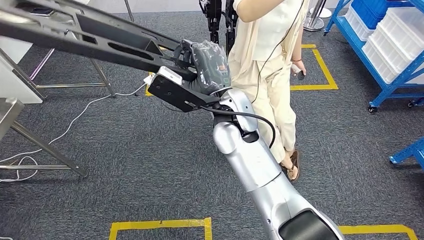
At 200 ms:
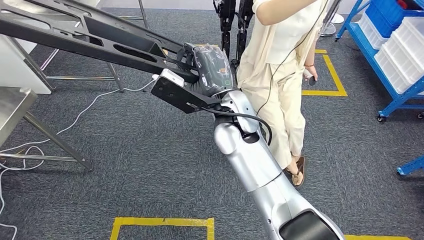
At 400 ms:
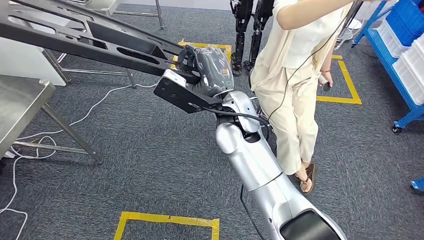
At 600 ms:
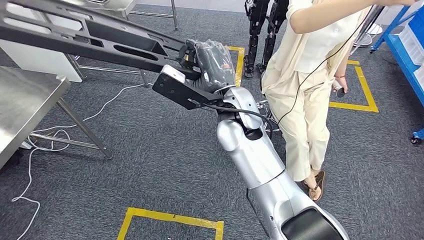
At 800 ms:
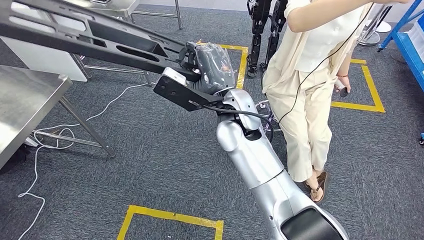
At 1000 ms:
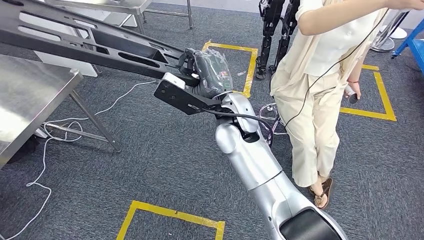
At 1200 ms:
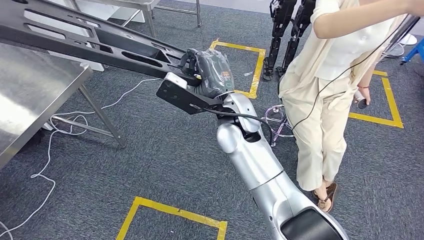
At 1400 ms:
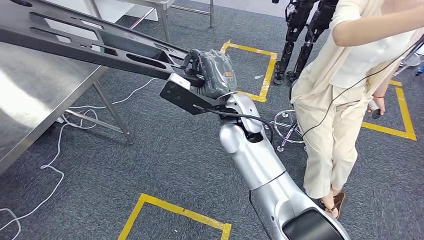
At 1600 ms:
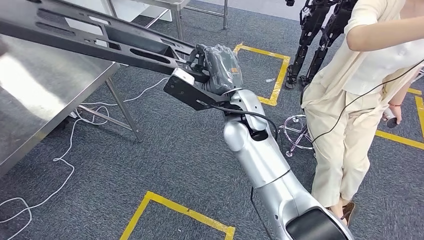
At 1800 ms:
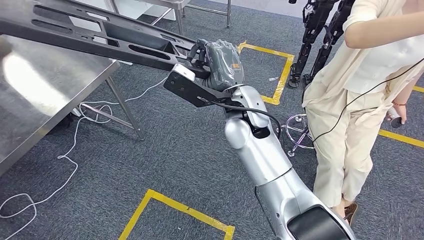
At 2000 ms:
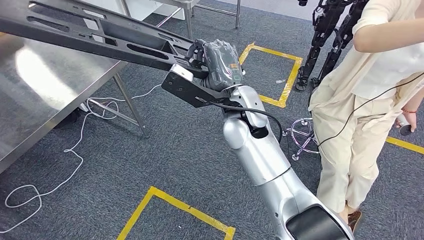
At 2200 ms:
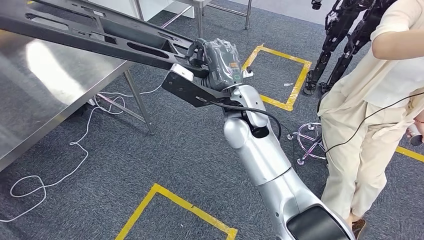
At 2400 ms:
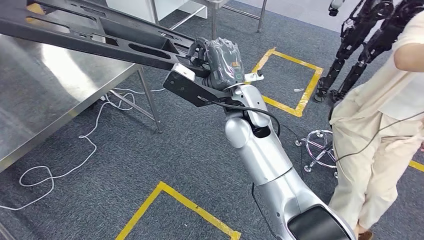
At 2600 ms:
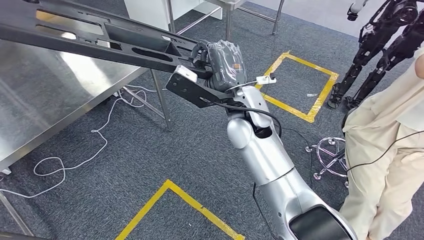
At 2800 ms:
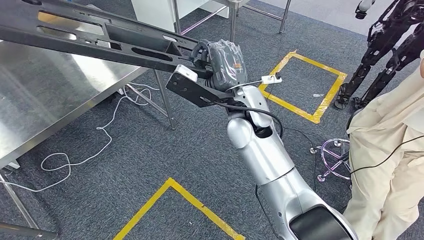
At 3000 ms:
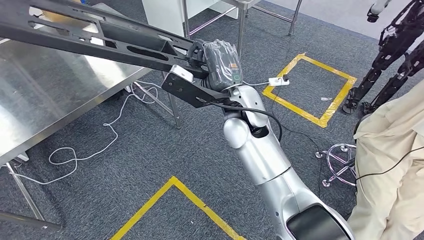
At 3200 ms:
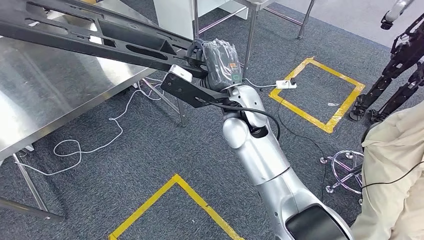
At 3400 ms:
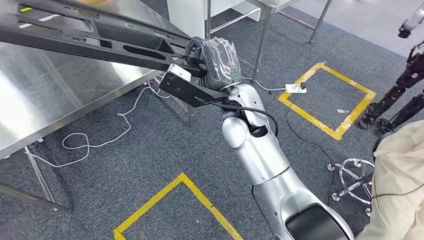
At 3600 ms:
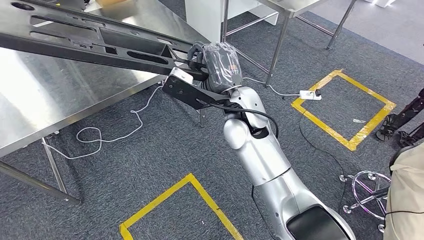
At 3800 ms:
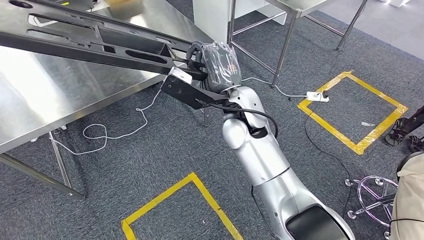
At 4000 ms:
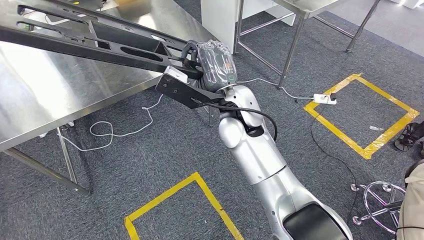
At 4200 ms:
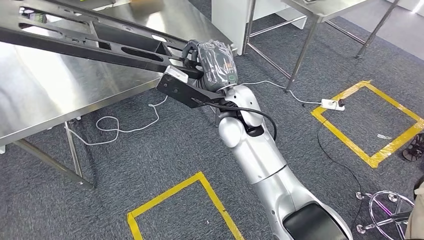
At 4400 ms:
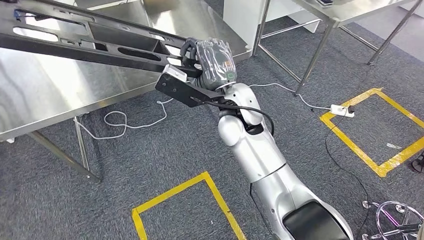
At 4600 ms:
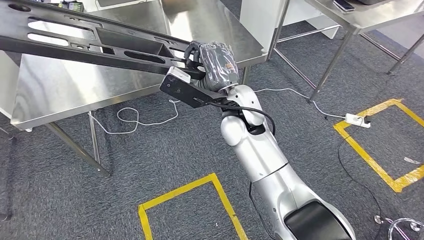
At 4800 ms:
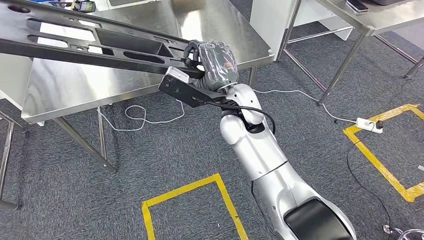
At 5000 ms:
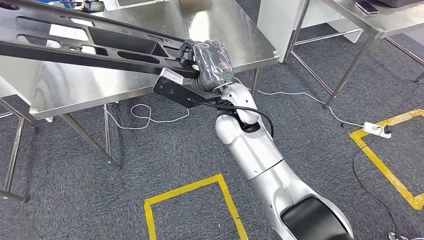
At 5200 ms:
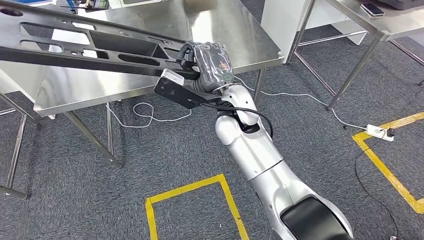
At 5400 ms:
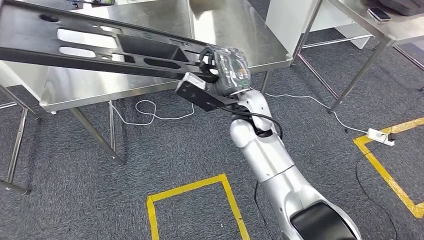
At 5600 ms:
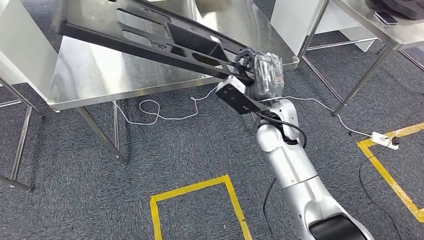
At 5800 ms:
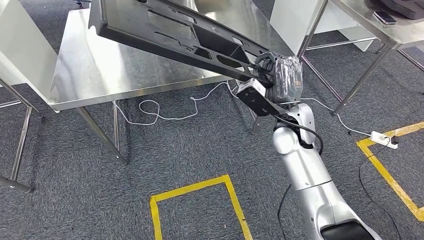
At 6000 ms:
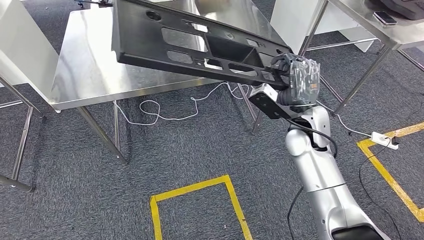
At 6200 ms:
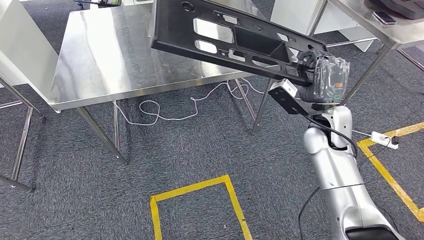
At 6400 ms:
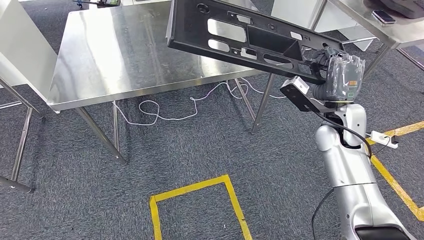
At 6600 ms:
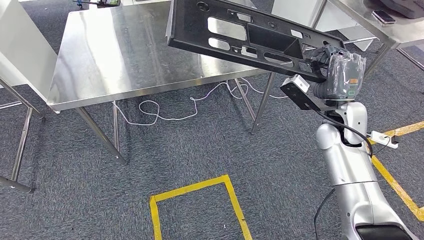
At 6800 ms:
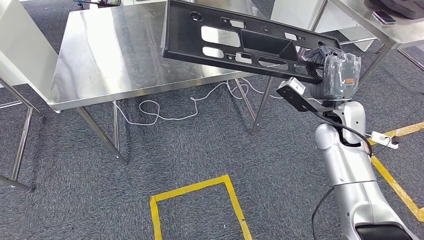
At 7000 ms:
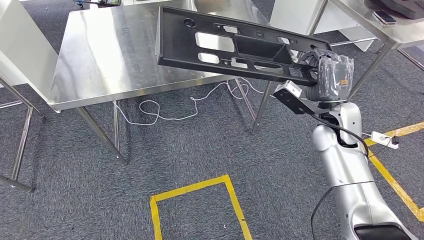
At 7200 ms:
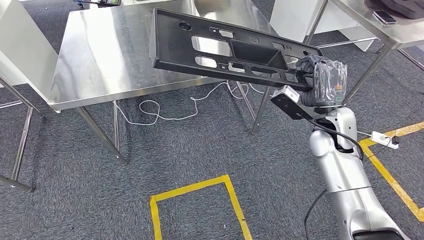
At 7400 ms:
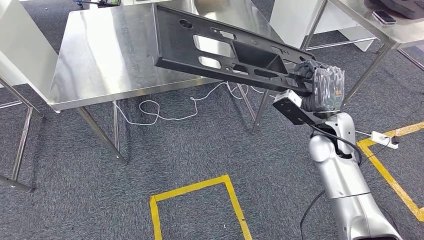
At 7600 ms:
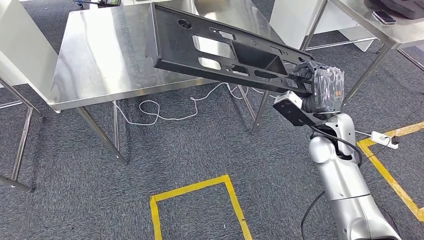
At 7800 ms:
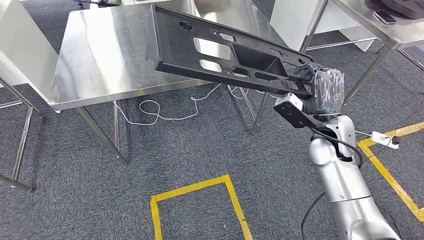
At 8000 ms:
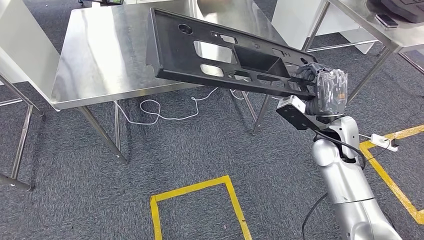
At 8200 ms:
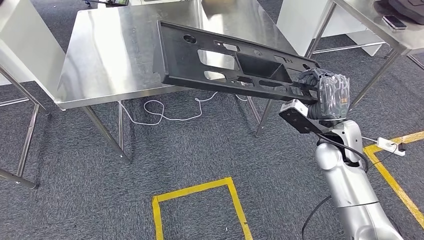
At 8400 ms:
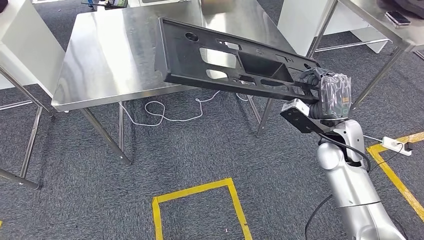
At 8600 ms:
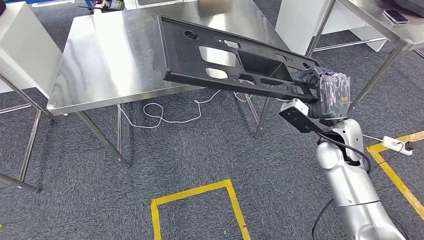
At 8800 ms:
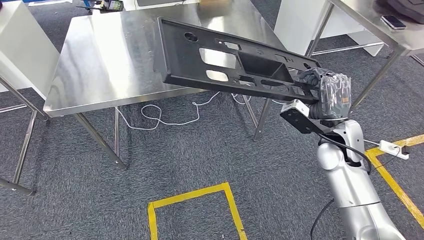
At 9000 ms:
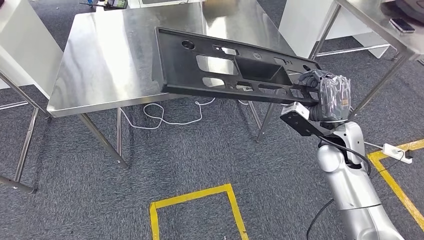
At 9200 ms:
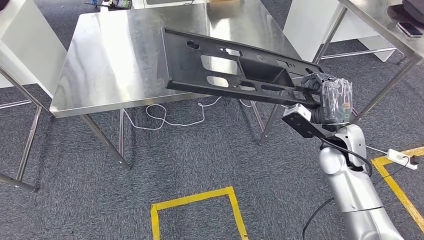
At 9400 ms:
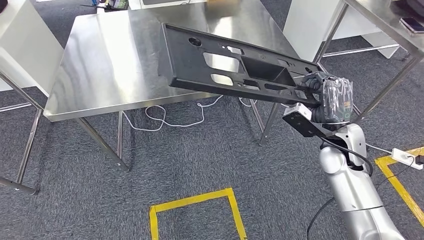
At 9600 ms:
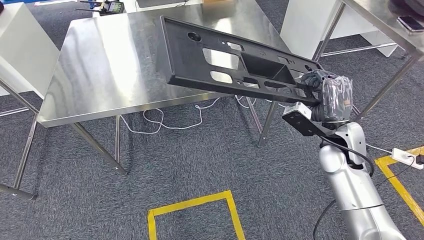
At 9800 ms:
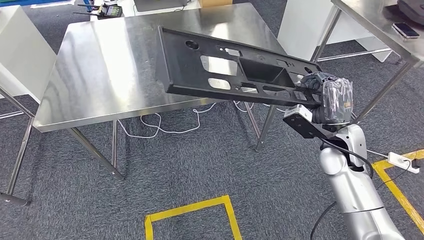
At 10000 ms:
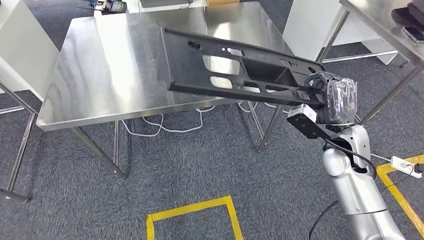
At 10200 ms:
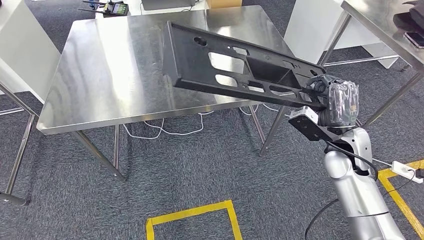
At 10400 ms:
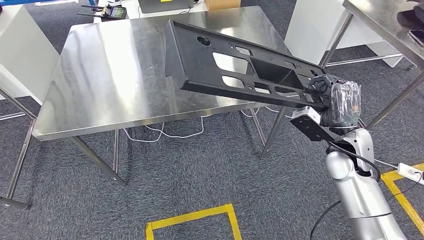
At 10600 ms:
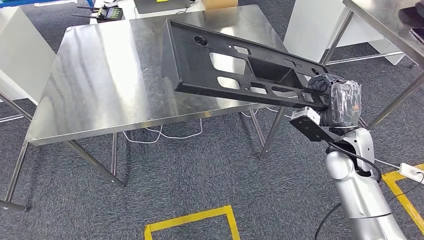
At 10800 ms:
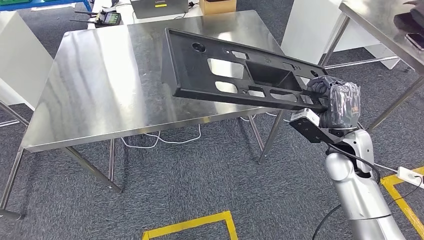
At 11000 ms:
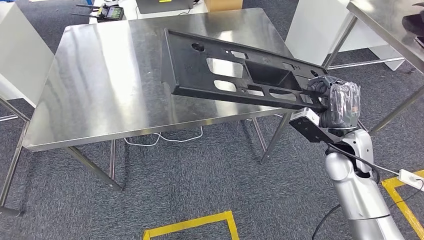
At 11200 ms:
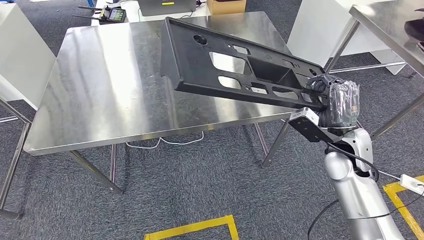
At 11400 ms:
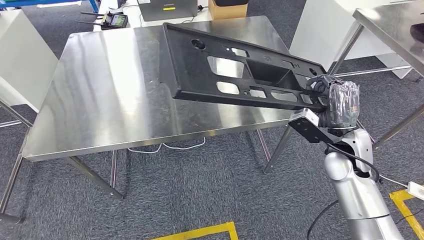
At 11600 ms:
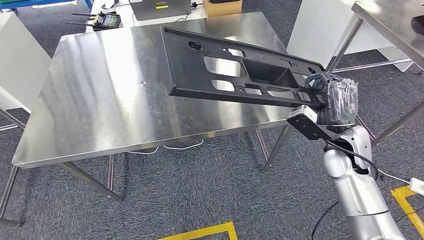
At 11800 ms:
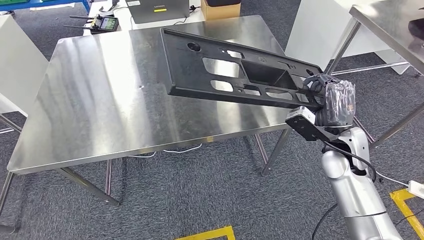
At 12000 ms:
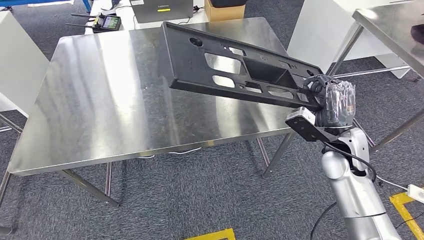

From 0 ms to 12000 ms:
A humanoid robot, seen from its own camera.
Step, from 0 ms to 7600 ms: Move the large material to the workbench.
From 6000 ms to 7600 ms: The right hand heads to the right, covering about 5 cm.

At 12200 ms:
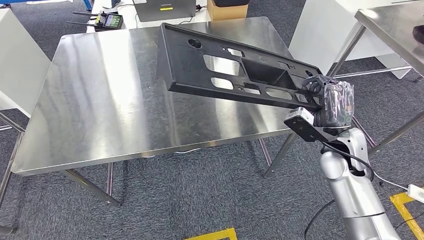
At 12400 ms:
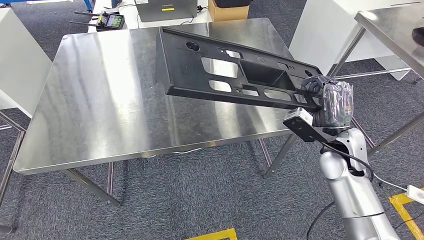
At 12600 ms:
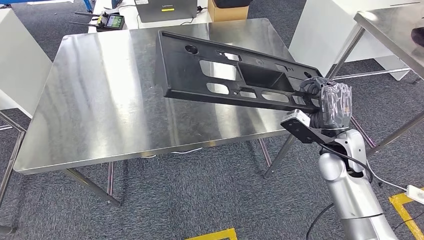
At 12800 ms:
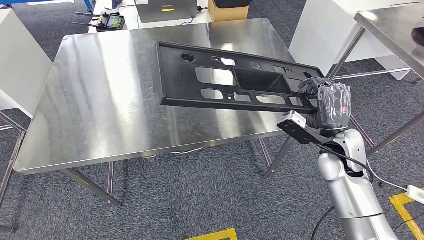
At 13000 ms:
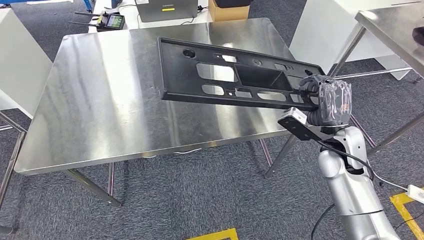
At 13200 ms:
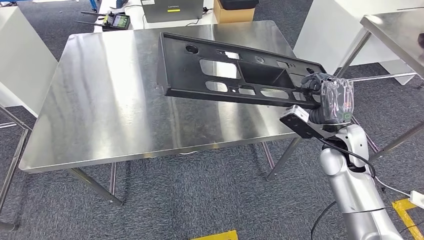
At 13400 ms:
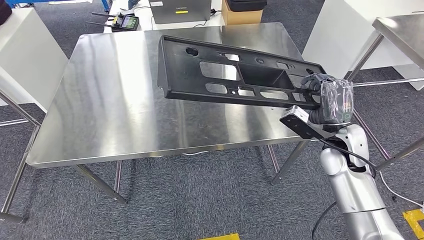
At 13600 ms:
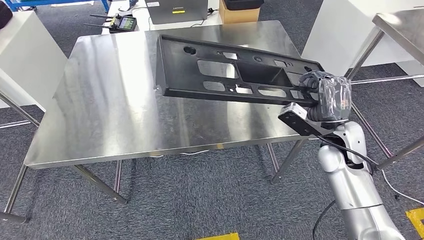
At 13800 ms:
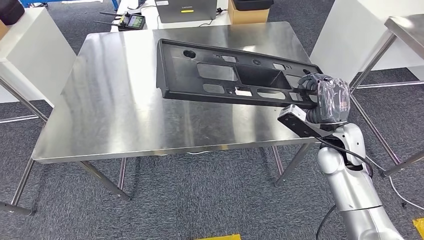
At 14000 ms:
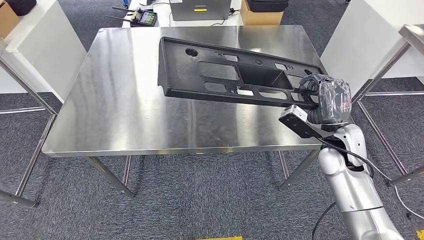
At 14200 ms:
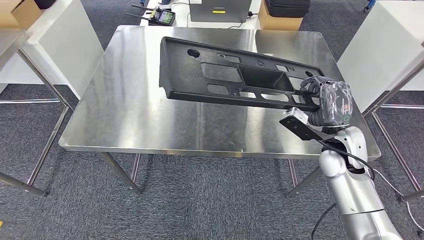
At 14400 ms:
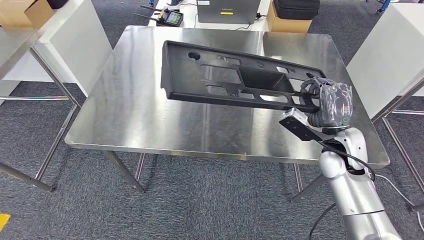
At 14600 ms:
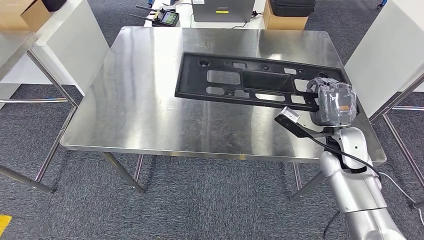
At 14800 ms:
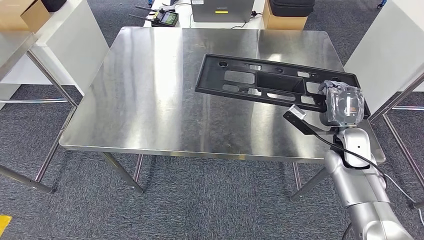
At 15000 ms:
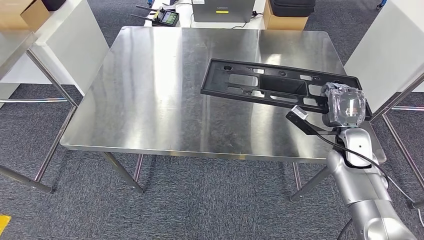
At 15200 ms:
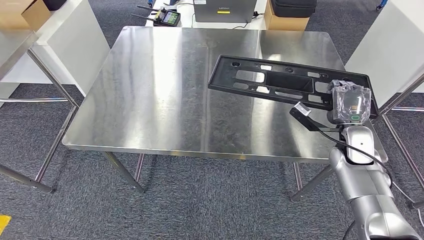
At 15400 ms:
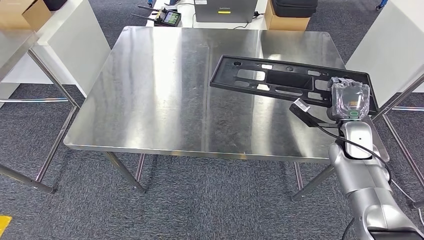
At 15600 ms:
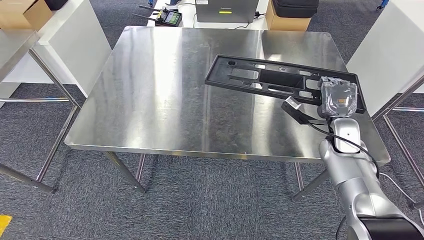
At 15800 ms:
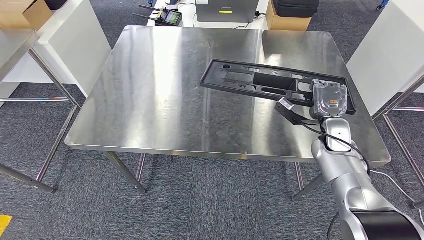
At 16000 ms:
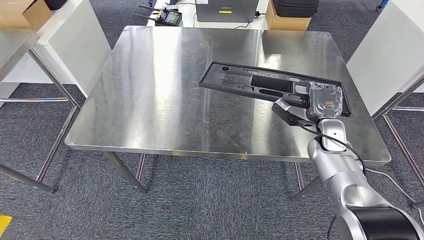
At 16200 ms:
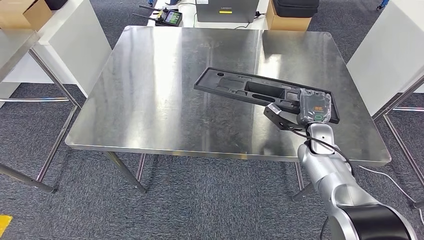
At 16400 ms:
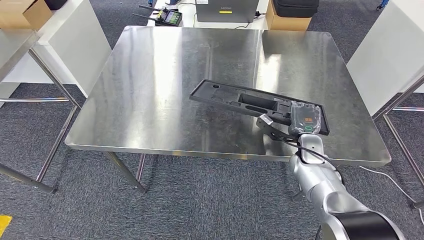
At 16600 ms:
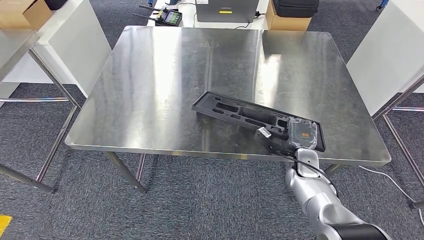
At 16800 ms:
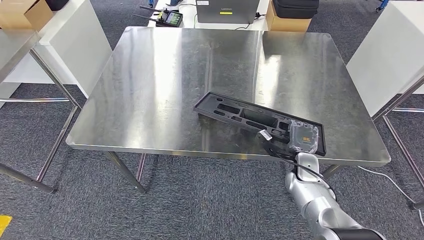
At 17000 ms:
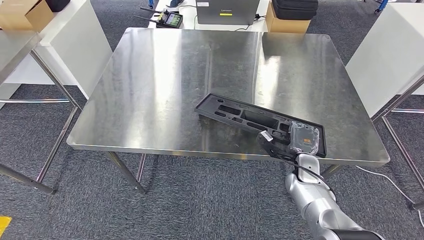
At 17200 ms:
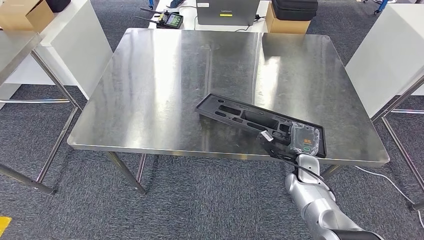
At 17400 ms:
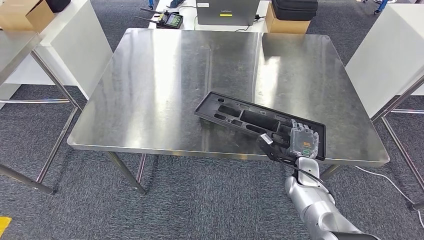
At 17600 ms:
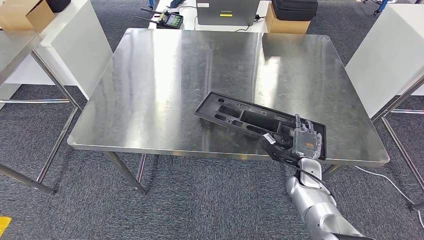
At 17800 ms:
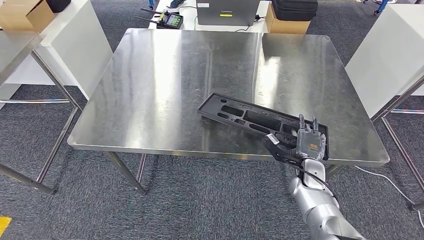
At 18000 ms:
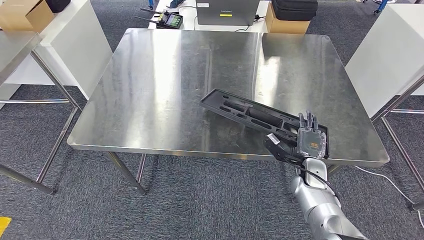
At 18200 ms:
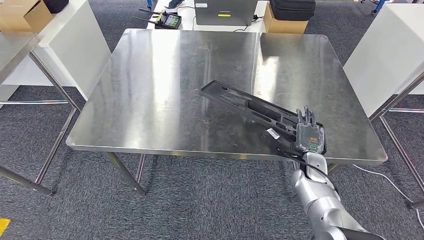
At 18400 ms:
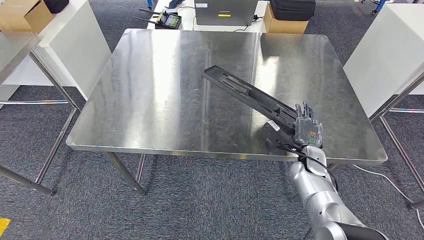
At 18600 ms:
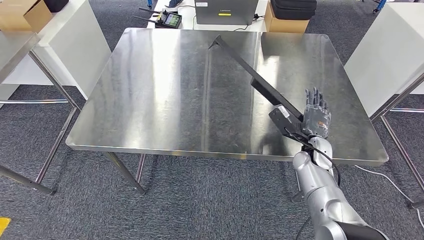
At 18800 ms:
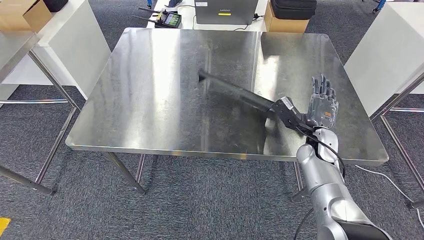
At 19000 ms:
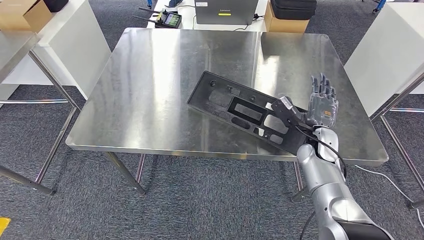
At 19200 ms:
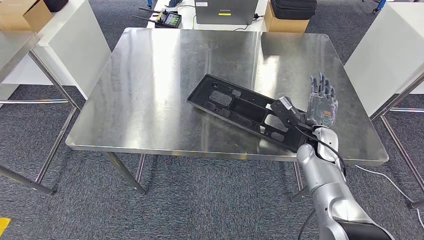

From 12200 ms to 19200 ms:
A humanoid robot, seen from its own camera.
From 16400 ms to 17800 ms: The right hand heads downward and backward, covering roughly 10 cm.
From 17800 ms to 19200 ms: The right hand goes approximately 10 cm upward.
